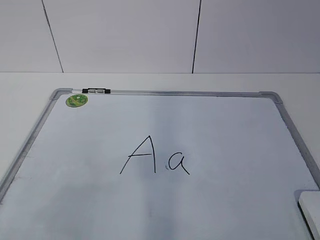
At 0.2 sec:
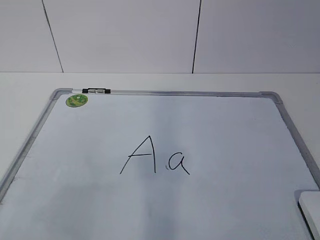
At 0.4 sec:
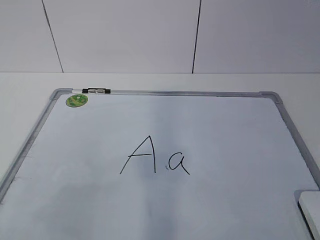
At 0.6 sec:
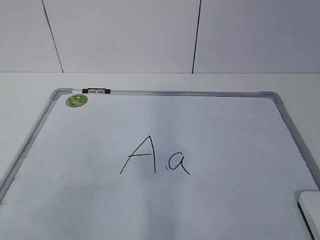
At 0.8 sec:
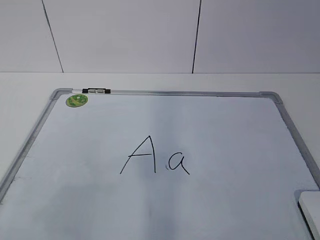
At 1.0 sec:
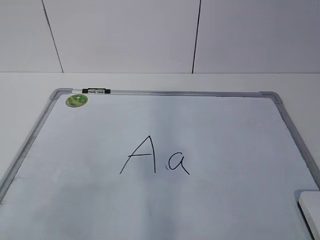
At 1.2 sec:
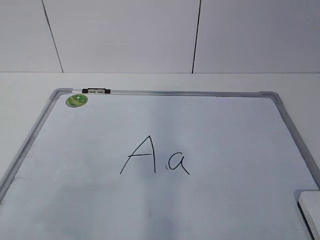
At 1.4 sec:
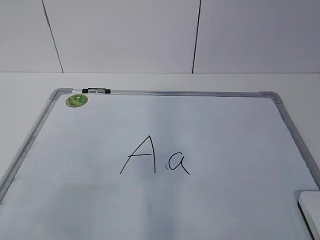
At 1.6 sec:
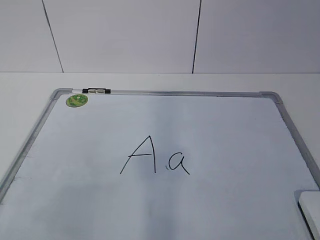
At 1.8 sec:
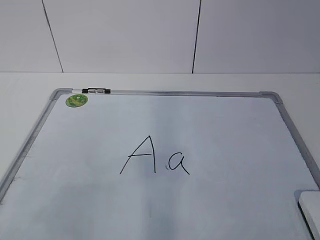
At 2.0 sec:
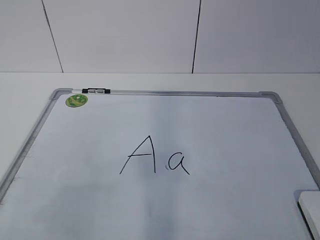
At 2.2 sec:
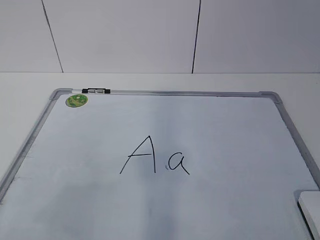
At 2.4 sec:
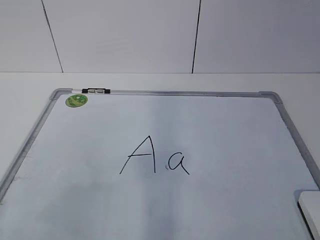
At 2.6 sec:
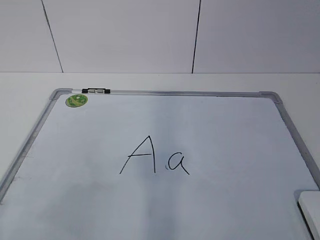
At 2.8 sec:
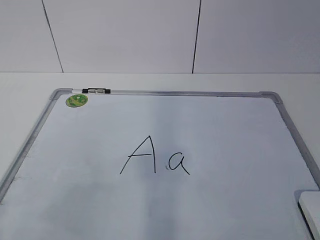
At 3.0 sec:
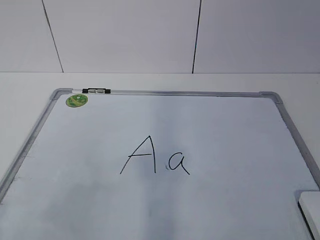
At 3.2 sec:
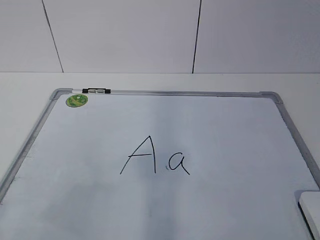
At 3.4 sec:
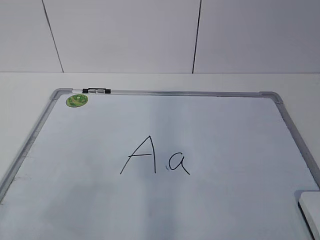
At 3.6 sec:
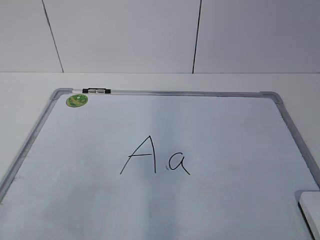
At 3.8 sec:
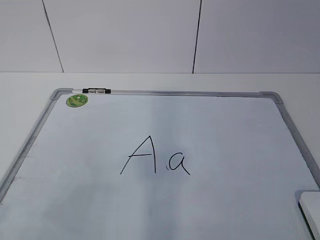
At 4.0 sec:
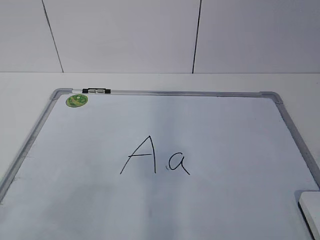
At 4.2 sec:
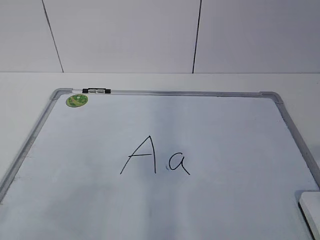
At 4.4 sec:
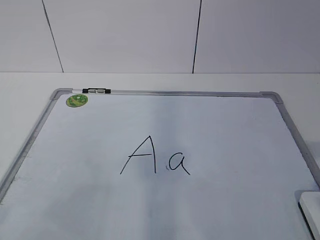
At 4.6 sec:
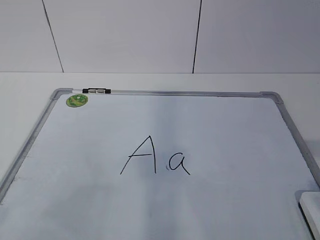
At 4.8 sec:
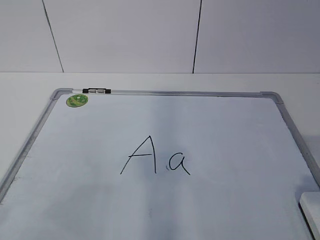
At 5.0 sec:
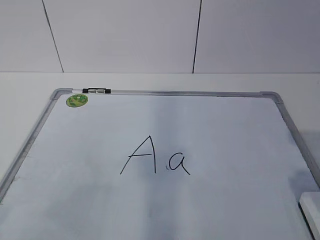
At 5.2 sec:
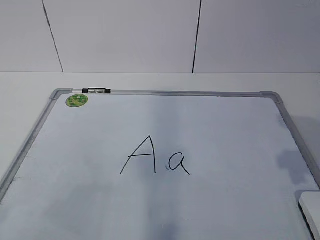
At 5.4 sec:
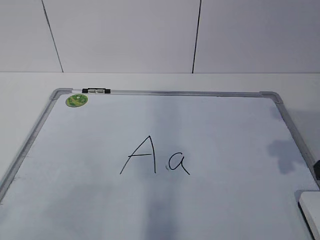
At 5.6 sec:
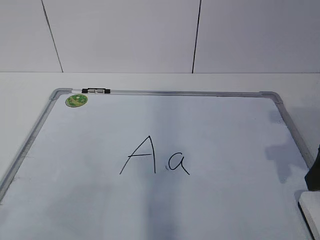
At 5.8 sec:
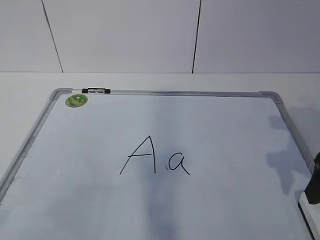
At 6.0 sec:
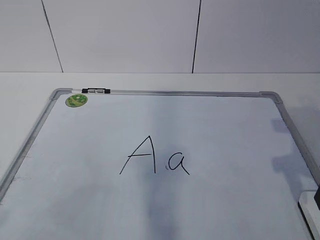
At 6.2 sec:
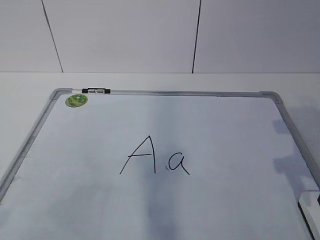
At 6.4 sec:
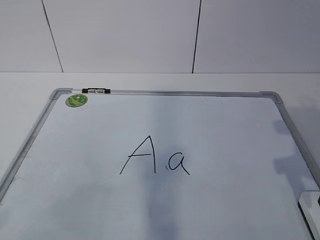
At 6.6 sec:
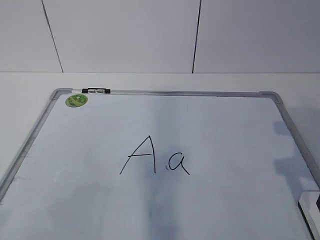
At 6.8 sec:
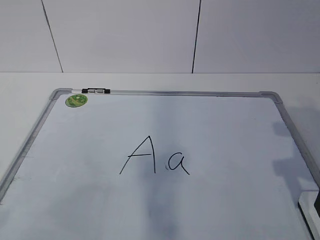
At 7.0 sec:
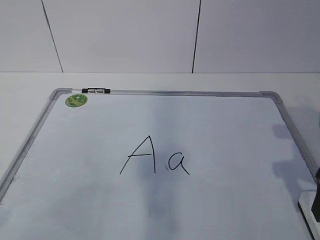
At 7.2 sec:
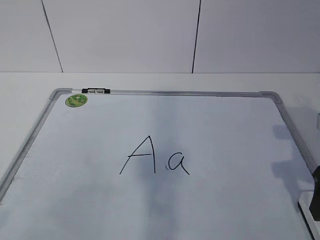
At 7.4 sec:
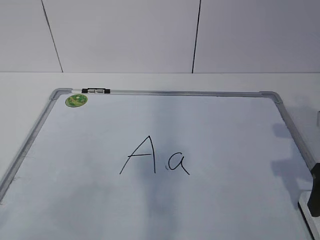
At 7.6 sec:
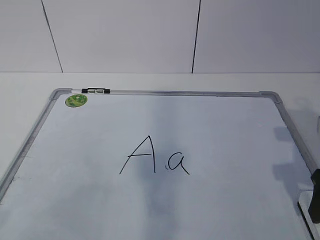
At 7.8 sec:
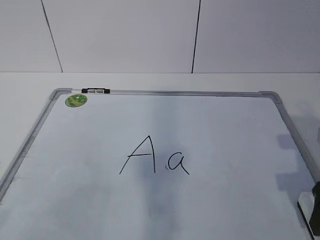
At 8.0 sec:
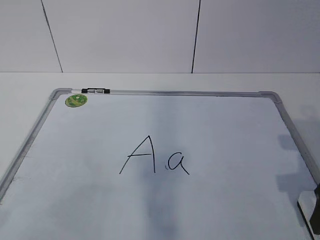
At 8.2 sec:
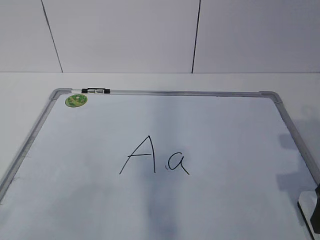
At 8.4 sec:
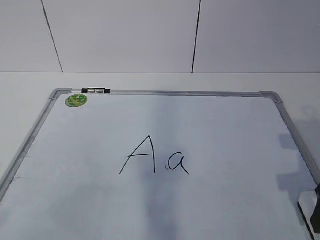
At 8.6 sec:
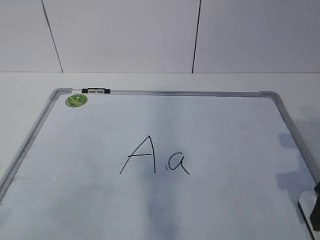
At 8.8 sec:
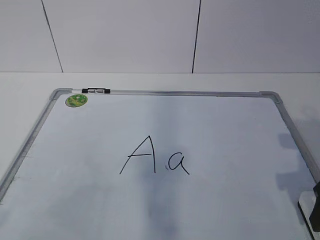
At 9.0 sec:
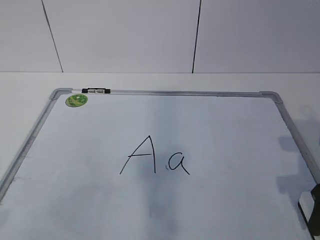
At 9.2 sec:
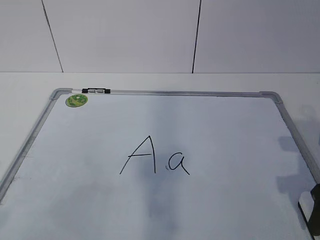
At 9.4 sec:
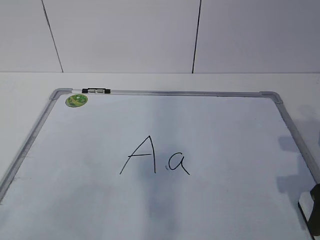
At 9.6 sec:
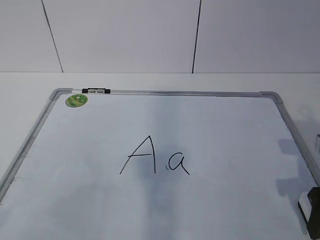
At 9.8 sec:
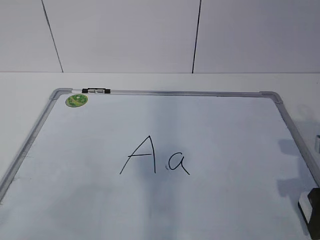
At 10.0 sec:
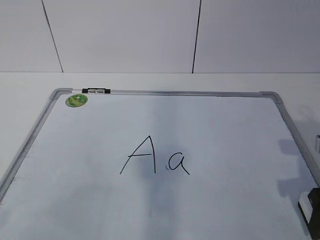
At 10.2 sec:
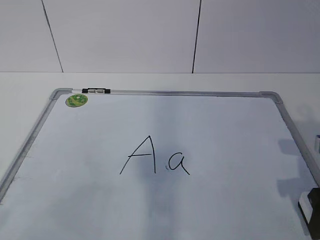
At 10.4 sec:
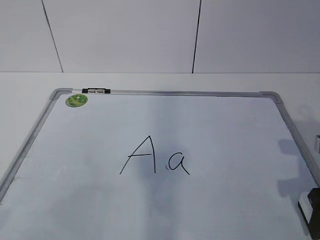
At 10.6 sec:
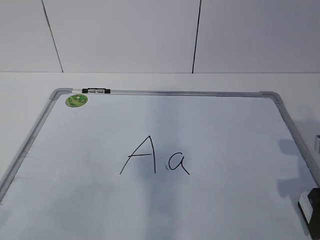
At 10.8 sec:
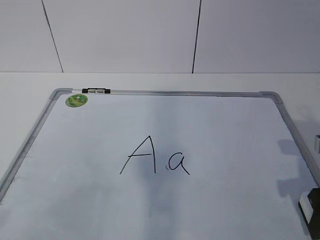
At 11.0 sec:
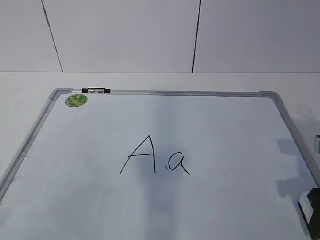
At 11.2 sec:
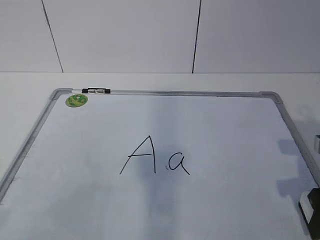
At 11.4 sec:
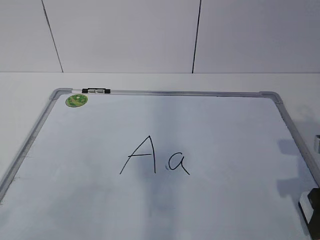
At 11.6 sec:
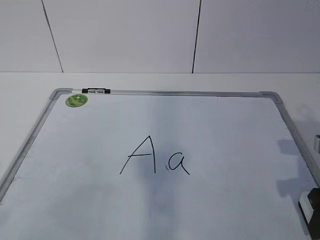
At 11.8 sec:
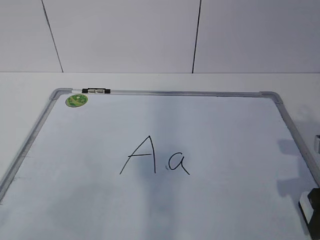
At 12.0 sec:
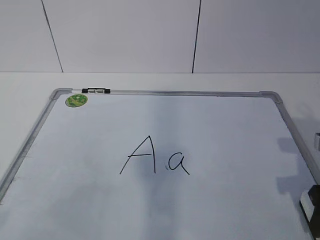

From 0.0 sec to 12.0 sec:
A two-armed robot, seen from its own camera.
Task of the whole recording: pick up the eraser on the blackboard and erase the letter "a".
From 4.4 sec to 6.0 sec: The right gripper shifts some 15 cm forward.
From 6.0 sec to 7.6 sec: The right gripper opens.
From 9.0 sec to 10.4 sec: Both grippers stay about where they are.

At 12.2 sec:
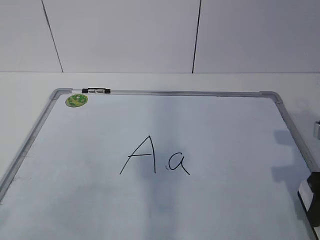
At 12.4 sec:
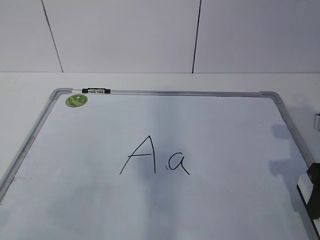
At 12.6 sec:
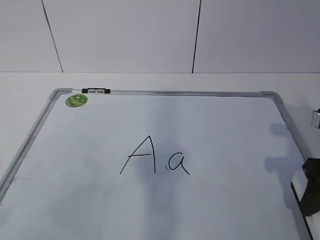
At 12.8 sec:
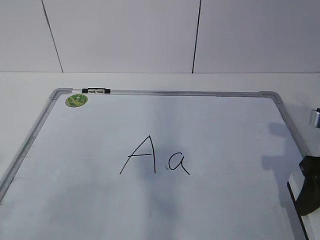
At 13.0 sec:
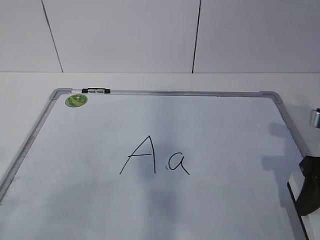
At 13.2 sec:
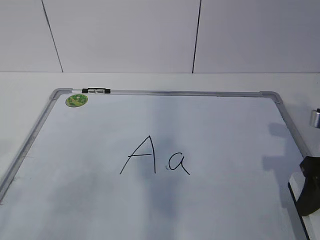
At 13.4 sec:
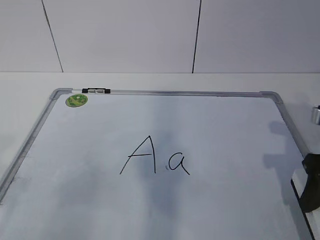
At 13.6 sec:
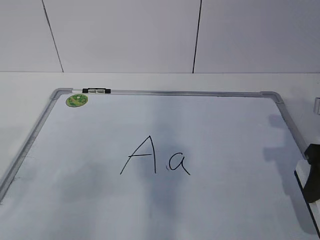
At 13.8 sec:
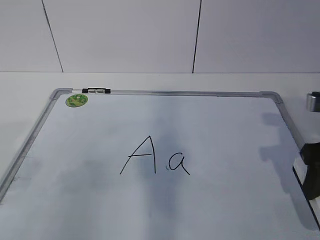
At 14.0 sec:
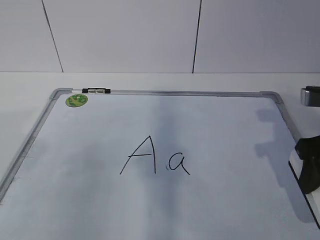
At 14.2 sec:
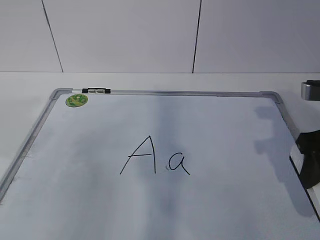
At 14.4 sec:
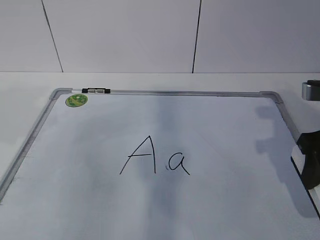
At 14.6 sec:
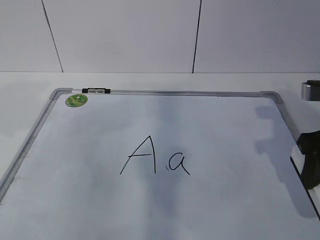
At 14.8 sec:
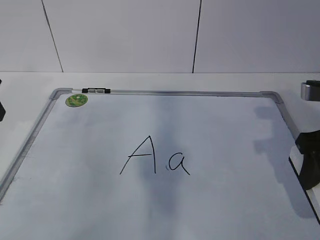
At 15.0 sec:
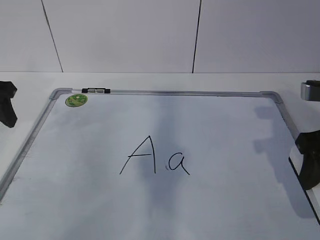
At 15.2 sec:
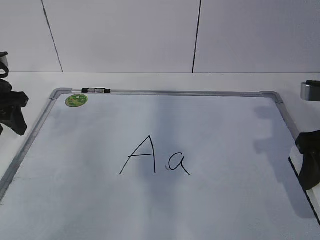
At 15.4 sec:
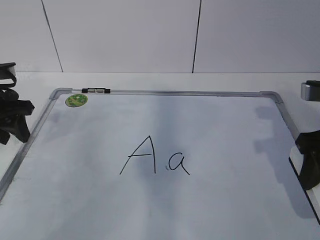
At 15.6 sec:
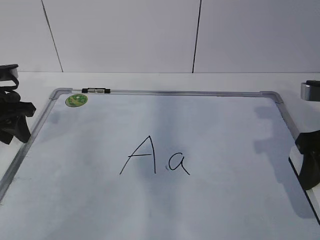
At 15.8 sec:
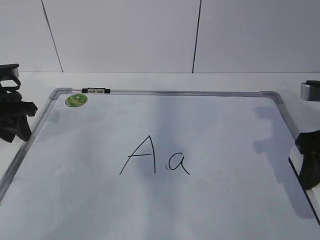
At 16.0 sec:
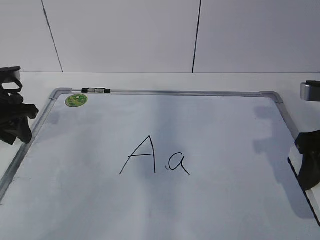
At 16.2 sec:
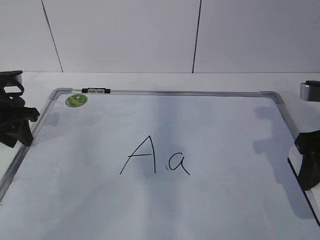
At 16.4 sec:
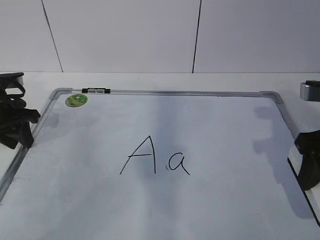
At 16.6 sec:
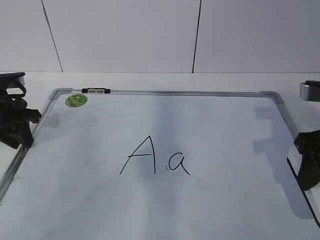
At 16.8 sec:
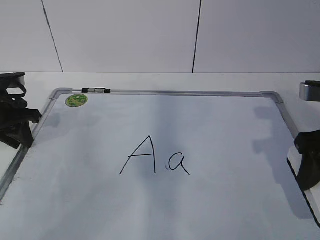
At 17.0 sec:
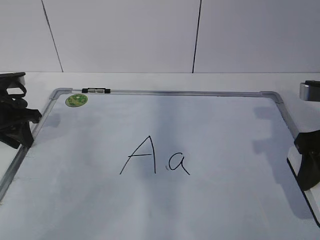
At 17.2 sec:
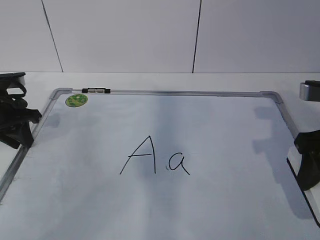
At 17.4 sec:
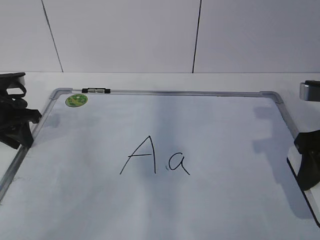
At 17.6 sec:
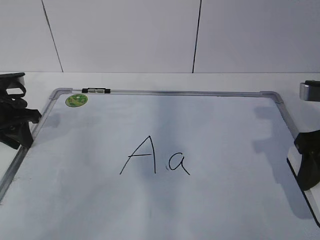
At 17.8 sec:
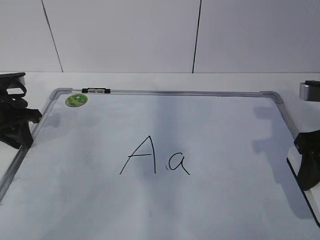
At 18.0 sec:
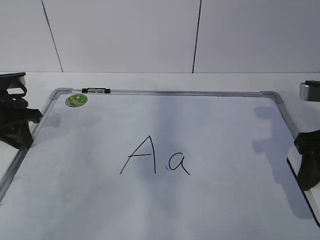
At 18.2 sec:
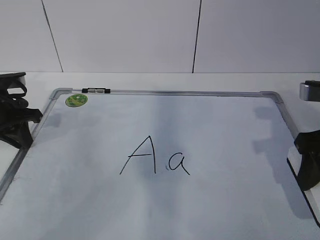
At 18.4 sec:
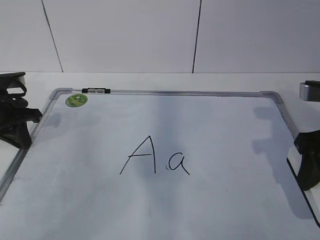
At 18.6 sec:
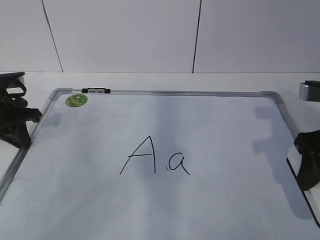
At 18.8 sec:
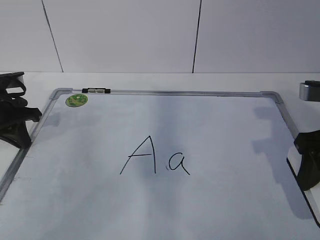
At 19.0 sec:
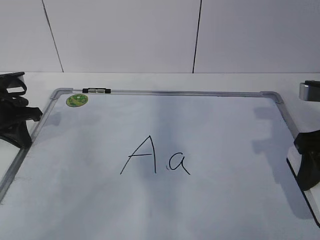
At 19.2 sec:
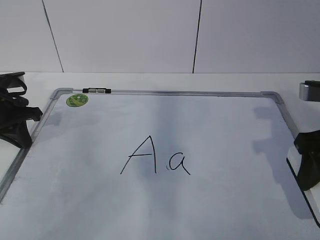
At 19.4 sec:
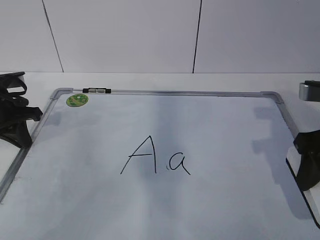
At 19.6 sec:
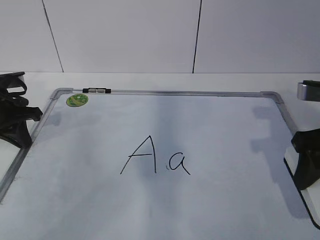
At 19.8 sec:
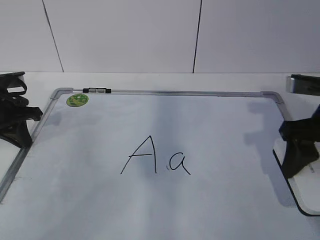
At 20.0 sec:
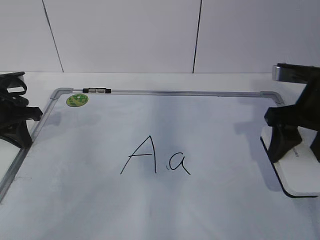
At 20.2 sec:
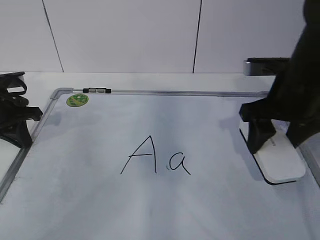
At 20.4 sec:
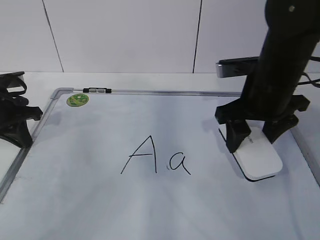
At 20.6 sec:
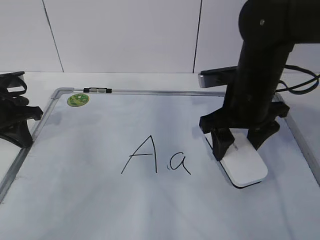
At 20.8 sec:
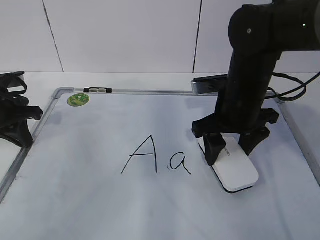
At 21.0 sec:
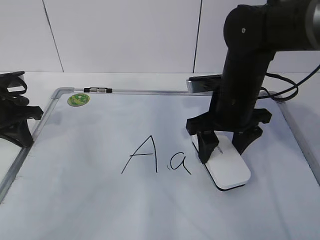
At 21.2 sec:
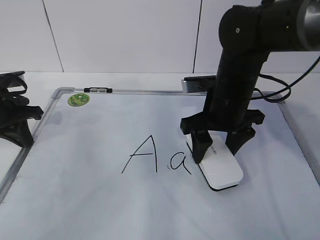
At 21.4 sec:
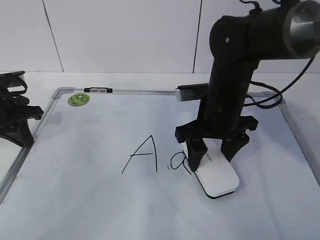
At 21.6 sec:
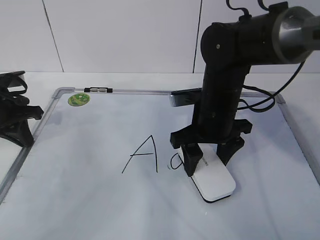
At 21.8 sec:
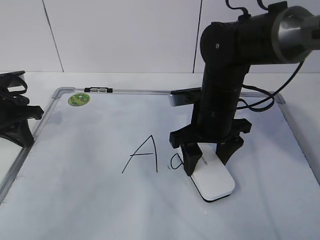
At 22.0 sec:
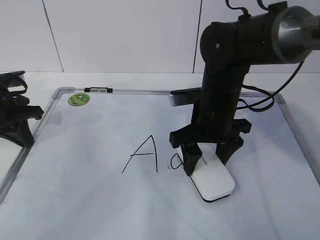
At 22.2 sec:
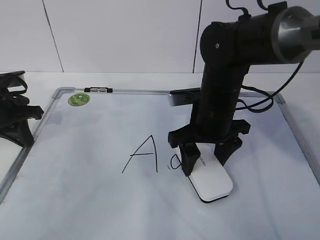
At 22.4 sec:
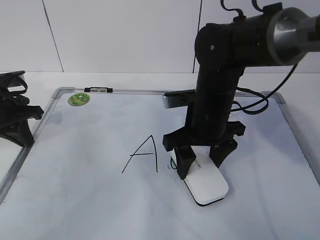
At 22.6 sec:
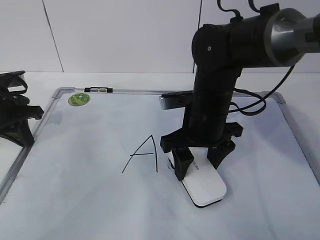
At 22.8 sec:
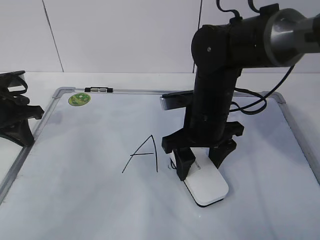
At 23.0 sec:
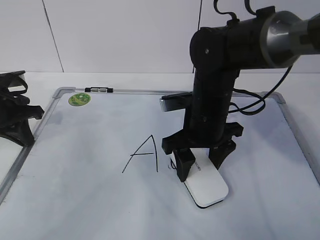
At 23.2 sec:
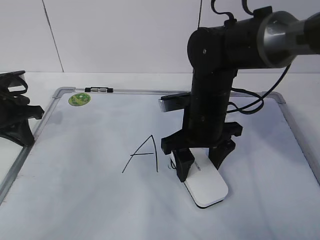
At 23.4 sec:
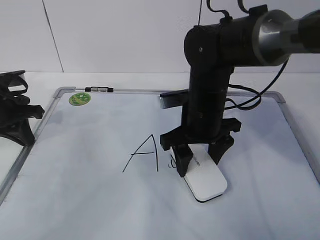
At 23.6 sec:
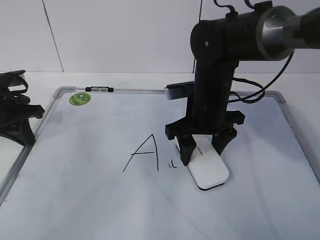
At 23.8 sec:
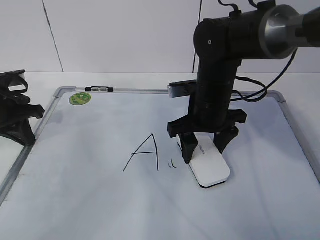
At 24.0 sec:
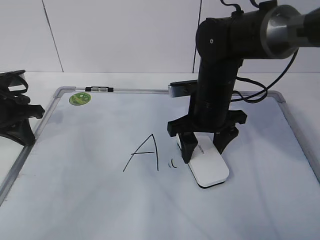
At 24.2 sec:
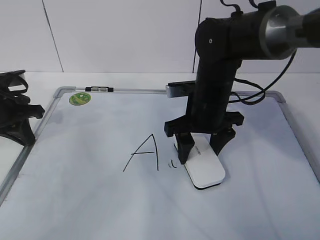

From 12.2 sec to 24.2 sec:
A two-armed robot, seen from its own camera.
Task of the whole recording: pick up the eraser on the blackboard and erase the letter "a".
Step, from 12.2 sec to 15.6 sec: Hold the drawing board steady with your left hand.
Step, from 15.8 sec to 24.2 sec: Erase the letter a with your right hand.
From 13.8 sec to 15.2 sec: The left gripper heads forward, covering roughly 25 cm.
From 15.2 sec to 16.6 sec: The left gripper closes its fingers.
From 16.6 sec to 18.2 sec: Both grippers stay put.
From 18.2 sec to 19.8 sec: The grippers make only small movements.
From 19.8 sec to 21.2 sec: The right gripper moves to the left and forward, about 15 cm.
From 21.2 sec to 24.2 sec: The grippers move only a little.
